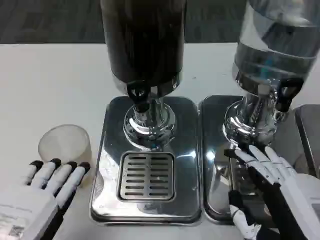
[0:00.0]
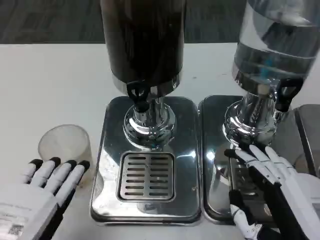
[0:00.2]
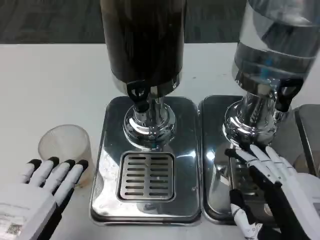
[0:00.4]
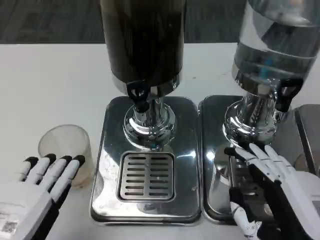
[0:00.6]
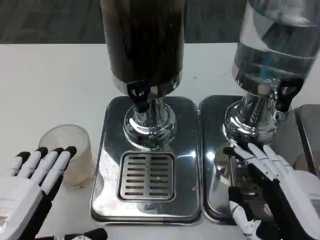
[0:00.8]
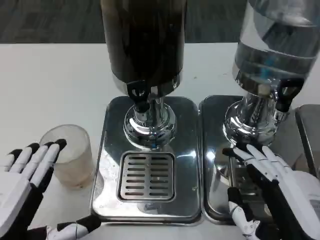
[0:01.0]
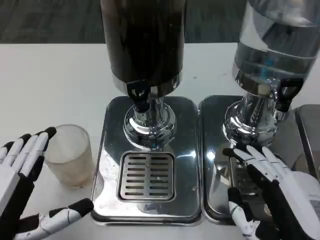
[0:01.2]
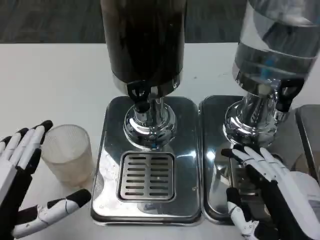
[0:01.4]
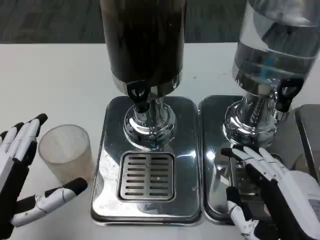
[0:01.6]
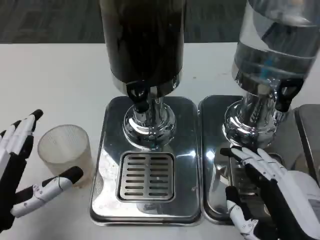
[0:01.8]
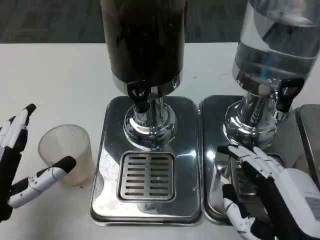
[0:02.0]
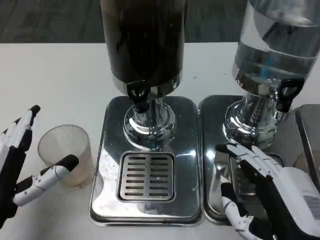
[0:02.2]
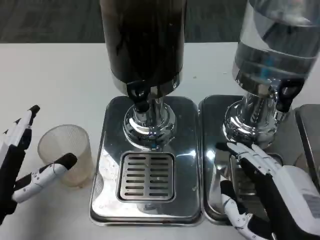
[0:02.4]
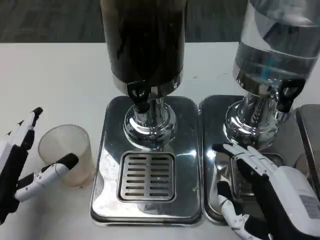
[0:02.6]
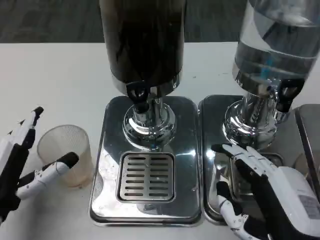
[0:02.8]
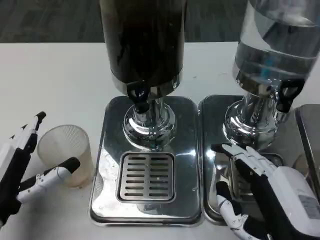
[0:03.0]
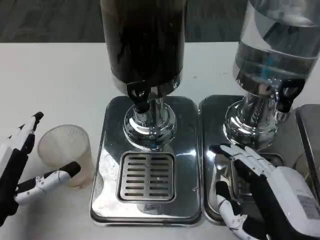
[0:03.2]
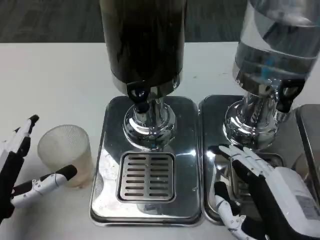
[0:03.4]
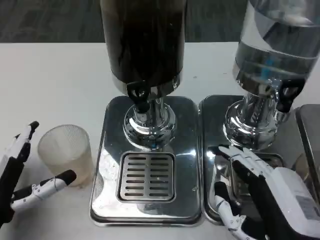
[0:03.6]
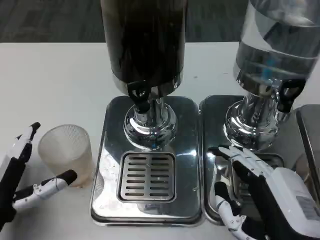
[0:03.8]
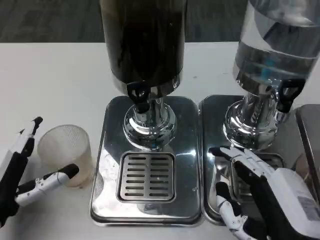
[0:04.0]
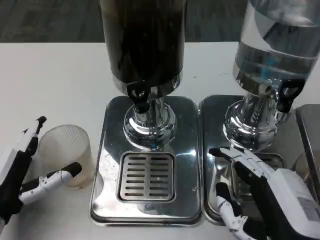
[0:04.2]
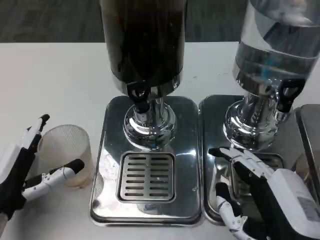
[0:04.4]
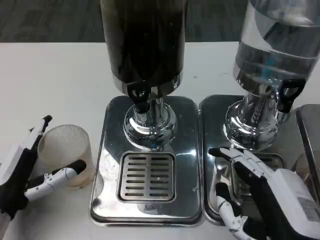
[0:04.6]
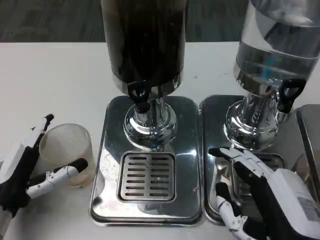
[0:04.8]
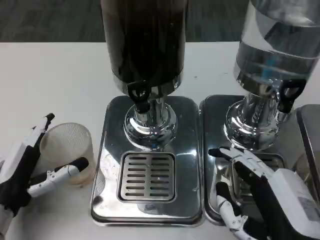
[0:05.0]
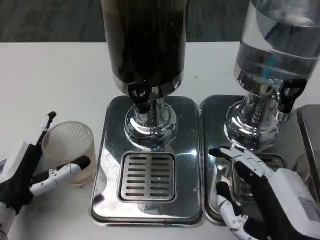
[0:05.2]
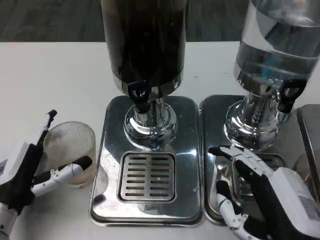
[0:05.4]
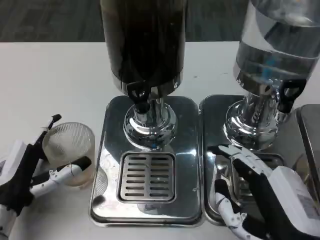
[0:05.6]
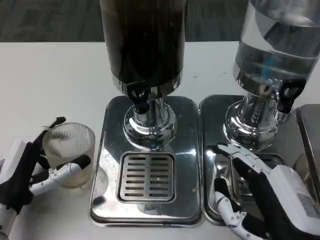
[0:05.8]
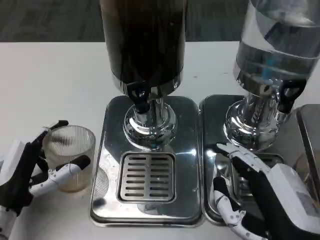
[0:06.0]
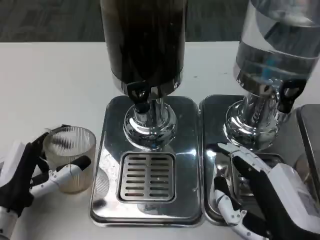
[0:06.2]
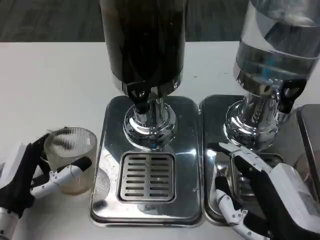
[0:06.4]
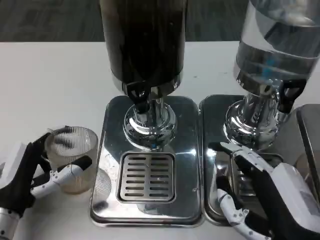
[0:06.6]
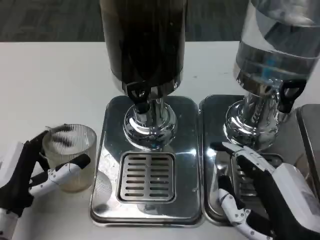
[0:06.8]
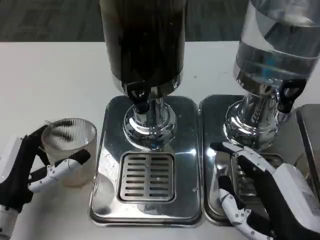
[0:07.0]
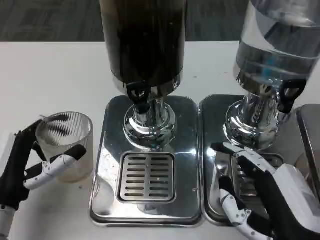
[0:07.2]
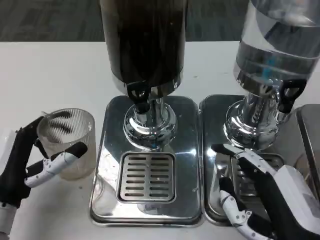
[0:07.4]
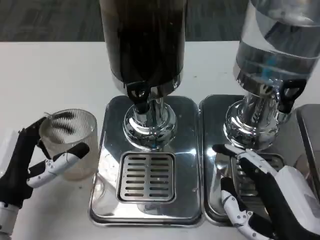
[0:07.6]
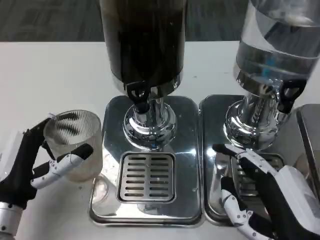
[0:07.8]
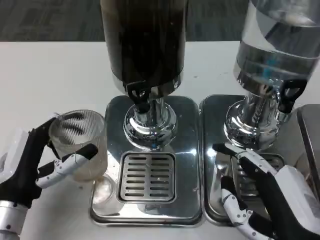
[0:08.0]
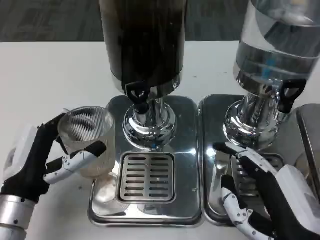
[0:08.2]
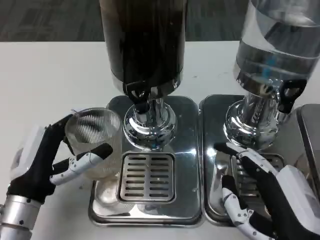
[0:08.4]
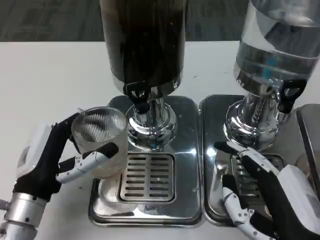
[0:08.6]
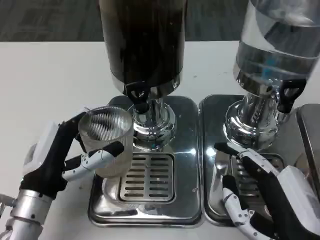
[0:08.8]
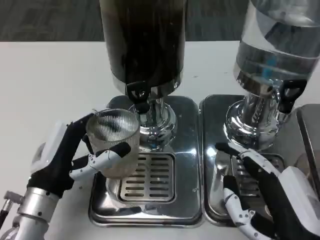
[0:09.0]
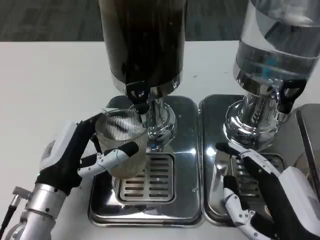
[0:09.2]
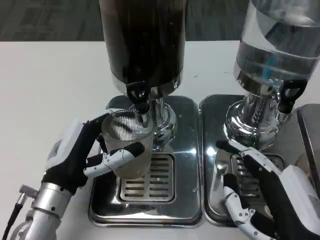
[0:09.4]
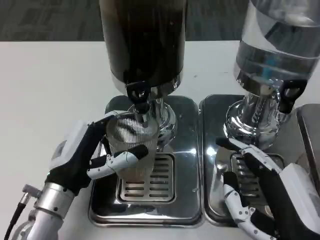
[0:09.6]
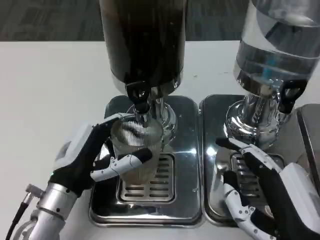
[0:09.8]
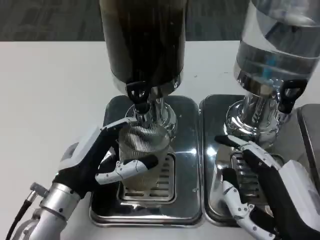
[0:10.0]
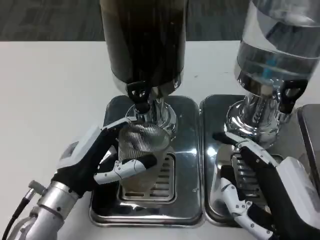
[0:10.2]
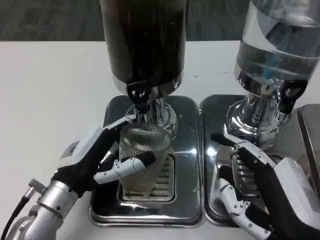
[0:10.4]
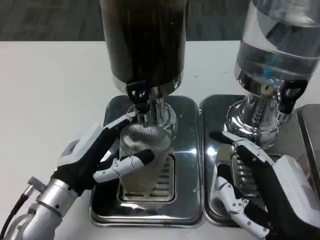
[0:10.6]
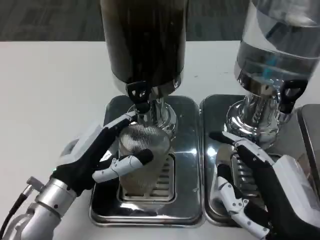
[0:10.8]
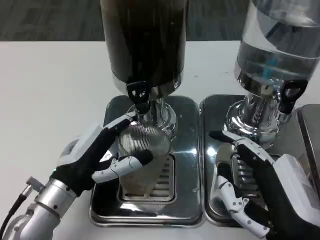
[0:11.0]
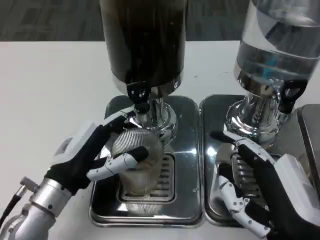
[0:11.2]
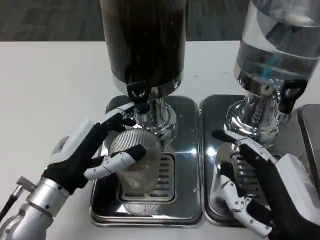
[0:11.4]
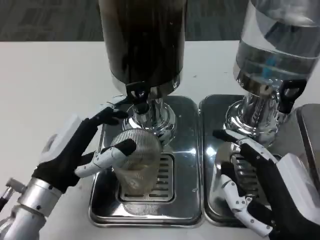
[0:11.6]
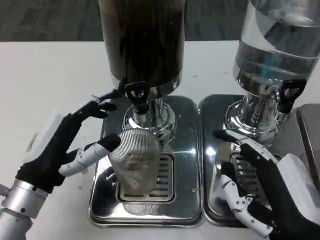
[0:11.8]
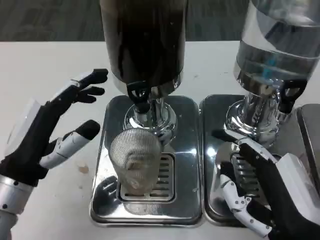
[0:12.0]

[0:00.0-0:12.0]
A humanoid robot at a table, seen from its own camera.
Task of the whole recording: Grasp the cup under the faucet to collect the drink, then remove the cup.
0:00.0 to 0:01.6: The left hand moves approximately 5 cm.
0:01.6 to 0:03.0: The left hand ends up some 5 cm from where it was.
0:03.0 to 0:07.6: The hands make only small movements.
0:10.4 to 0:12.0: The left hand heads upward, covering approximately 5 cm.

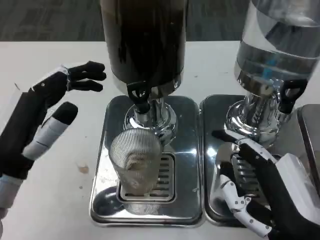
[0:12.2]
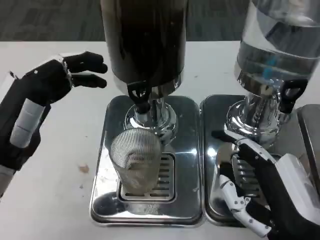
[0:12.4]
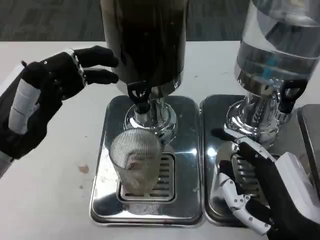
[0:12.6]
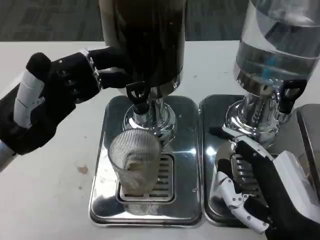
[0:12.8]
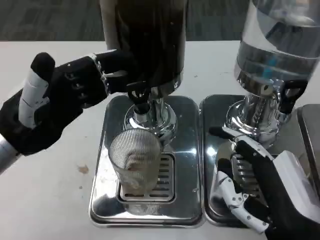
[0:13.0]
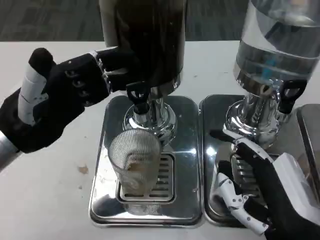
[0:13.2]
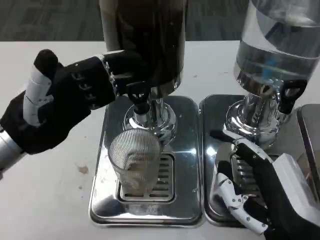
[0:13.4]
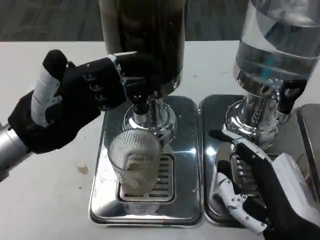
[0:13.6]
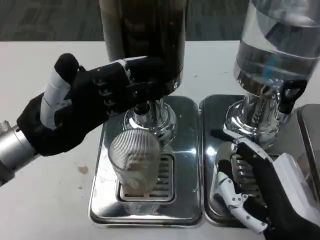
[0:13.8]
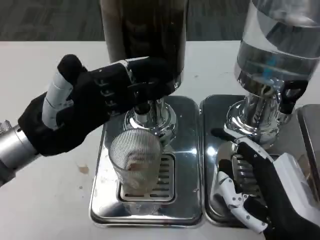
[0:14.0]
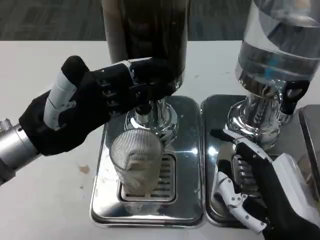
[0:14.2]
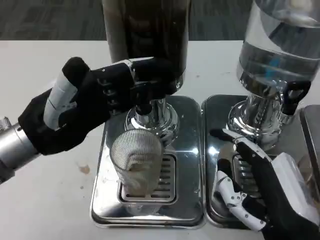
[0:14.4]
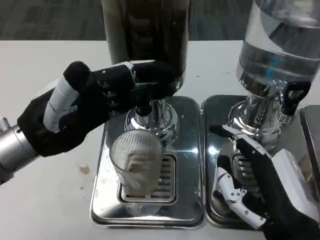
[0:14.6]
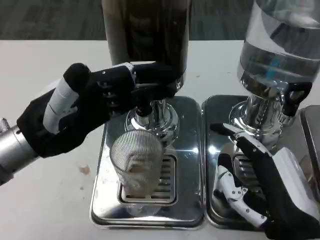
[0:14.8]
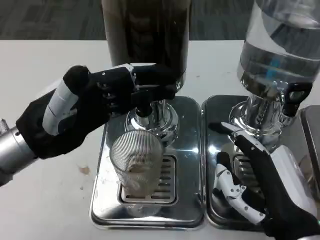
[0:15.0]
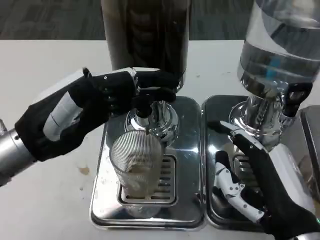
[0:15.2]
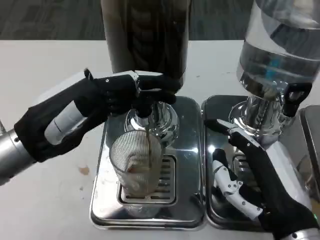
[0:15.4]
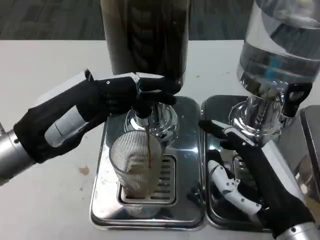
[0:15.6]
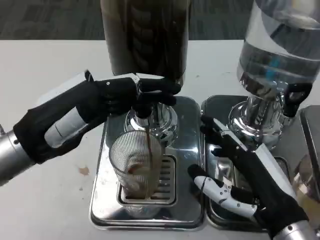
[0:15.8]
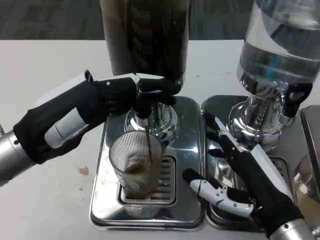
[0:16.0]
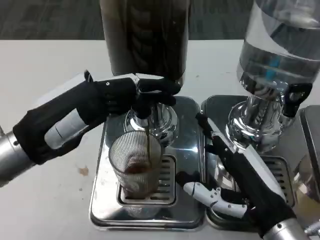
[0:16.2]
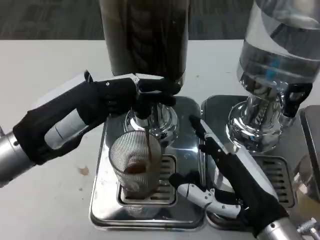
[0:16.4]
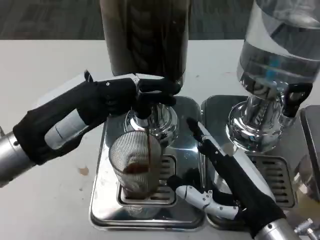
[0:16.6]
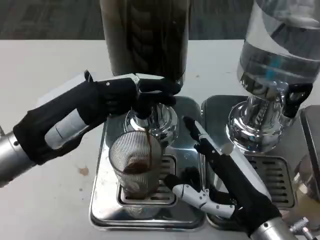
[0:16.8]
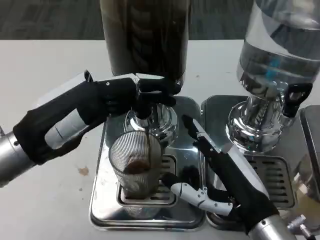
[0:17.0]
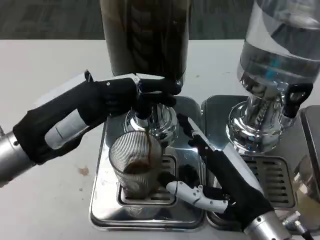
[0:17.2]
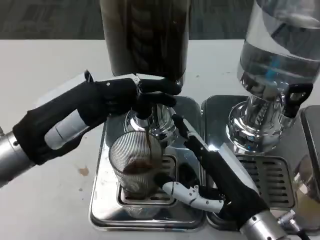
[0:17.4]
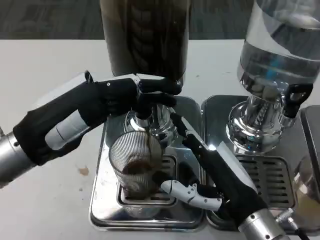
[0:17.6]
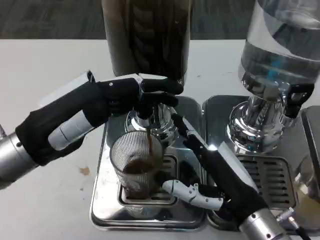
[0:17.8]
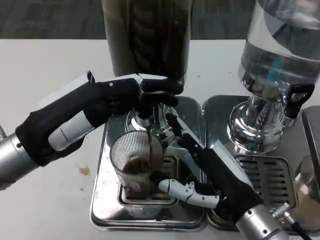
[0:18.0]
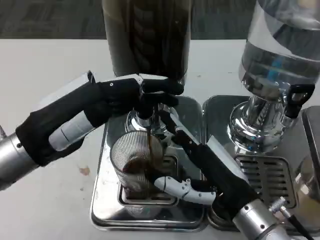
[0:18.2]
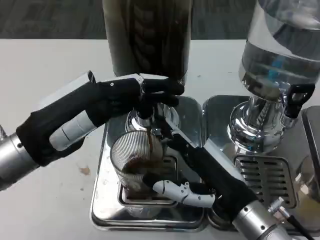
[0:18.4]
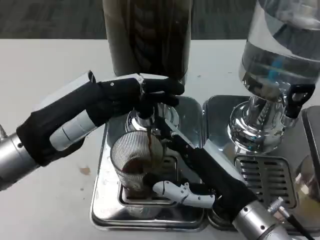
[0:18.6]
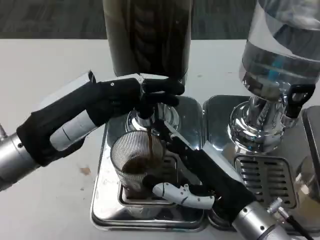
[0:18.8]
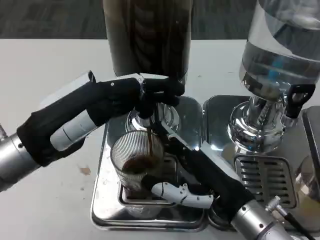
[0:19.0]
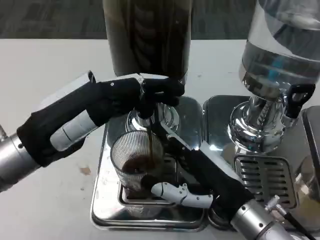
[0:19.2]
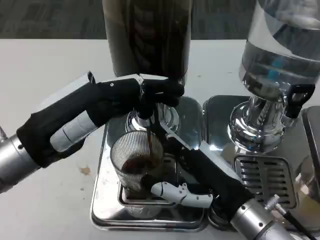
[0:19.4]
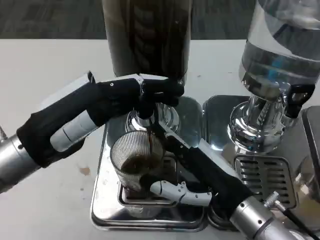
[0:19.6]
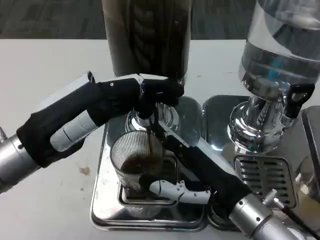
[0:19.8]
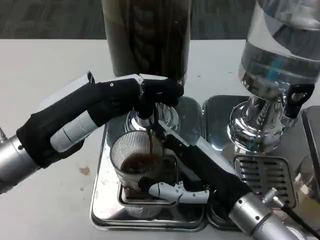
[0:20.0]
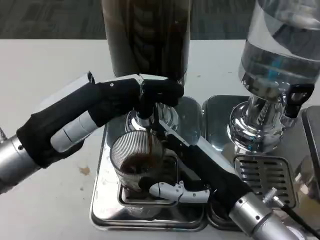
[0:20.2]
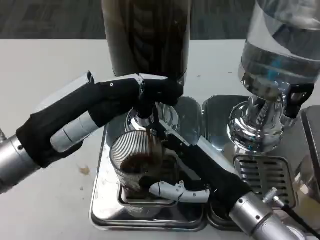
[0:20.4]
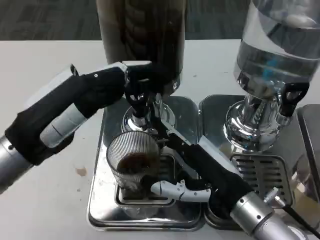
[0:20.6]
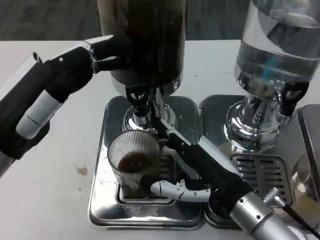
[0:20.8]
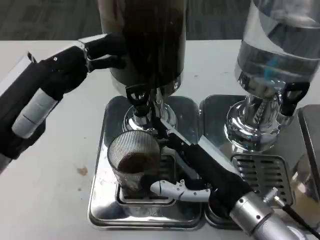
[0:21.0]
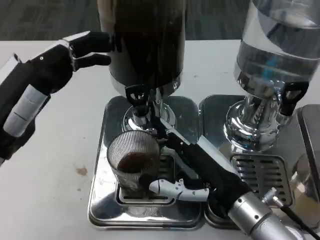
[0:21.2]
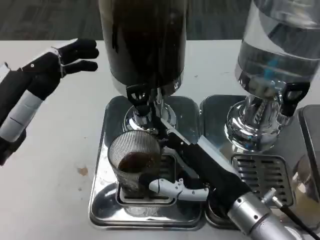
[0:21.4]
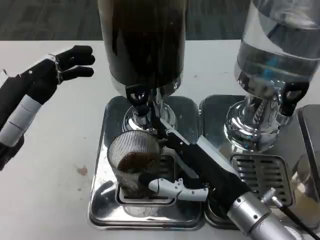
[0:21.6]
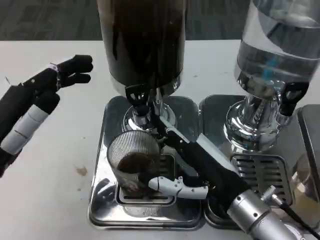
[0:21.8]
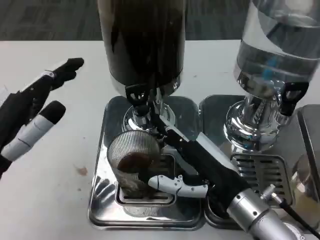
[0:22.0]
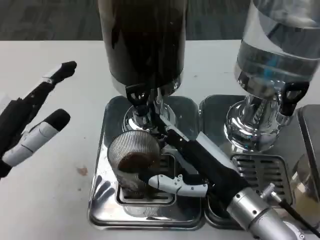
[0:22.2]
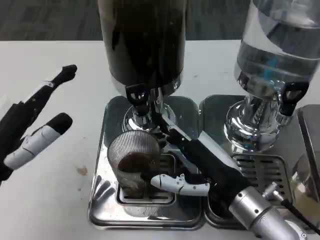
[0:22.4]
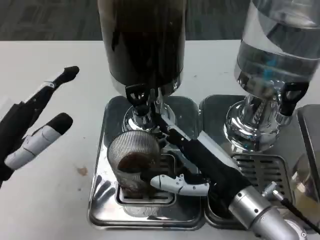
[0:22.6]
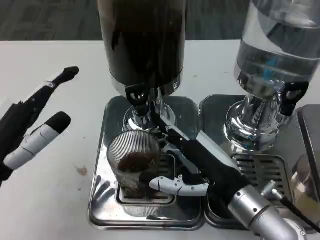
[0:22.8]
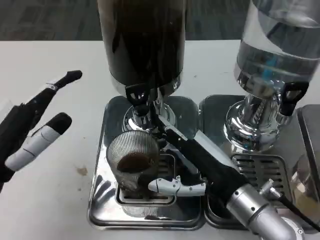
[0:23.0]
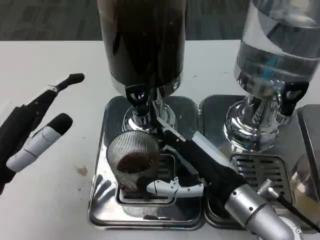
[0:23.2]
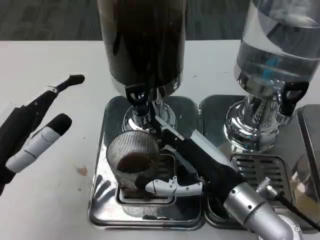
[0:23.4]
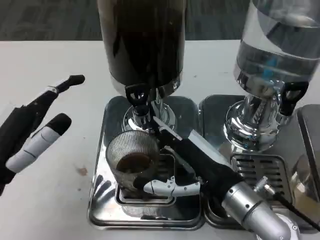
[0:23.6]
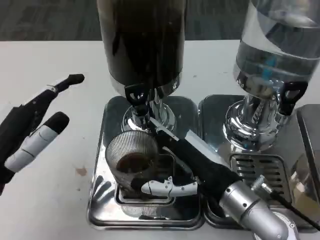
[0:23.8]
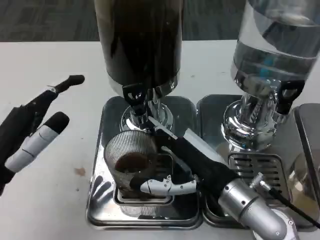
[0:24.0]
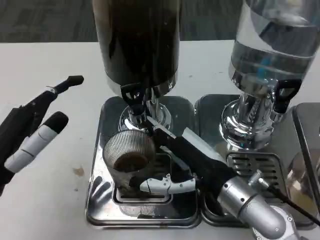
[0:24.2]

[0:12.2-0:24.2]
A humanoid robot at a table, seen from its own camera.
Task of the whole recording: Grasp the cup under the faucet to collect the drink, then remove the cup.
0:12.2 to 0:13.8: The left hand goes roughly 5 cm forward.
0:18.2 to 0:19.8: The hands make only small movements.
